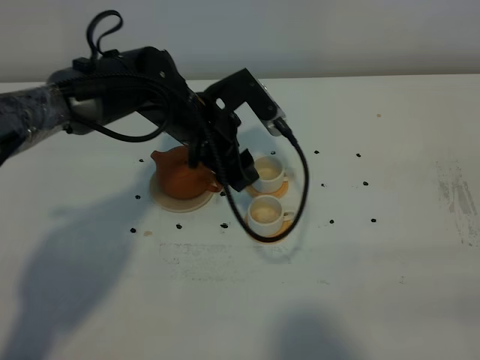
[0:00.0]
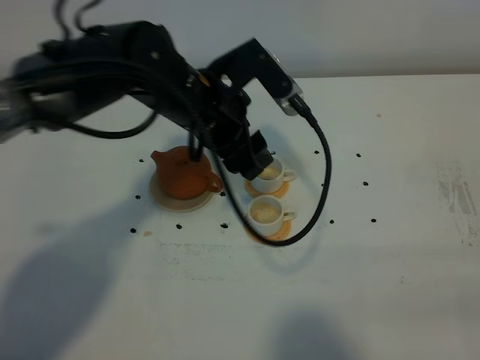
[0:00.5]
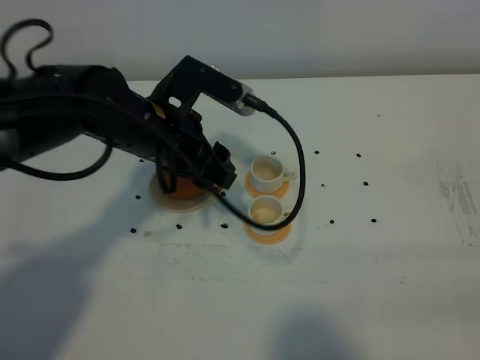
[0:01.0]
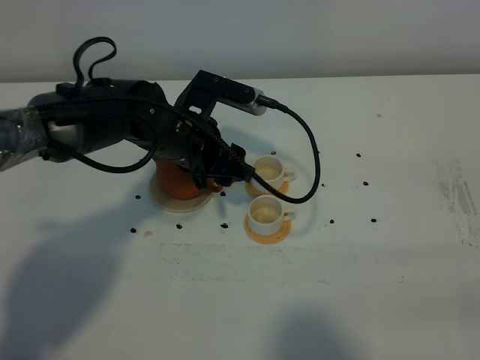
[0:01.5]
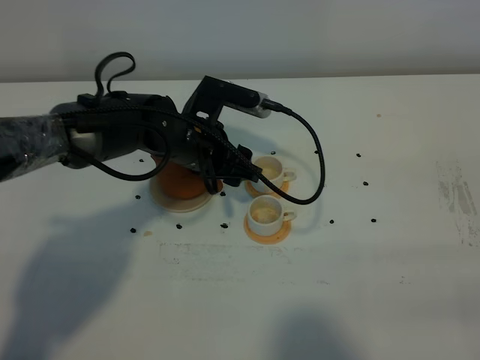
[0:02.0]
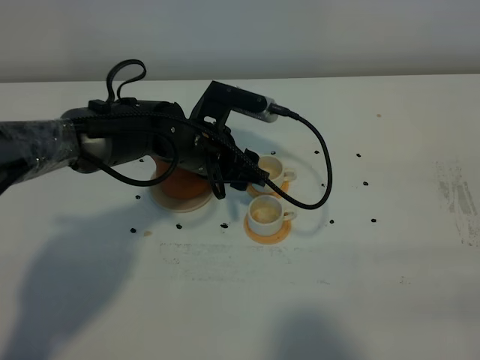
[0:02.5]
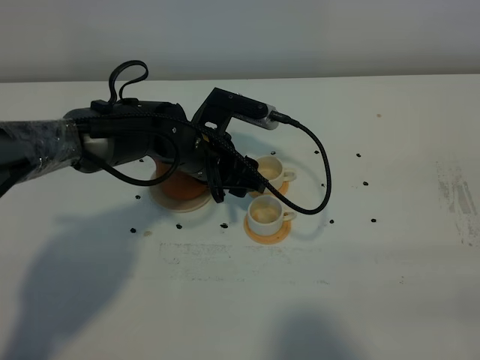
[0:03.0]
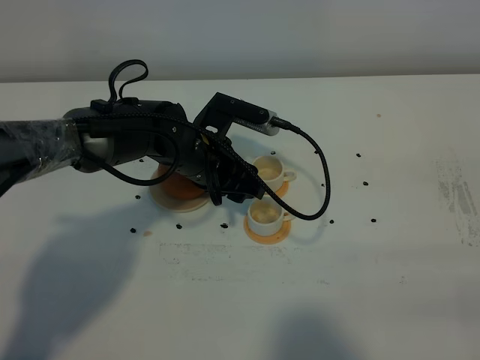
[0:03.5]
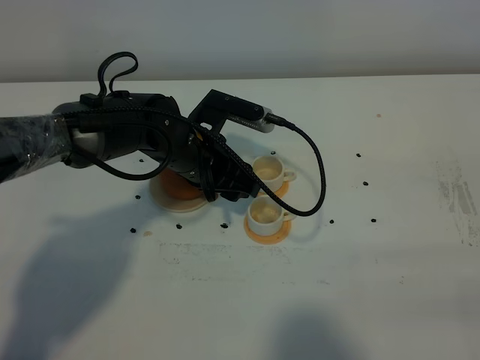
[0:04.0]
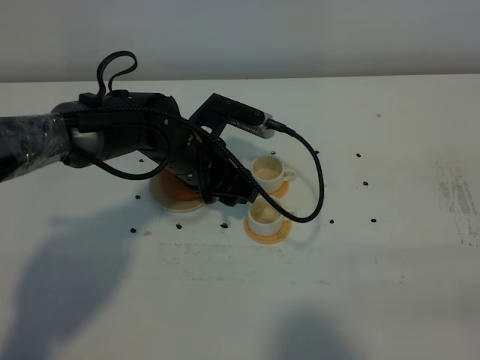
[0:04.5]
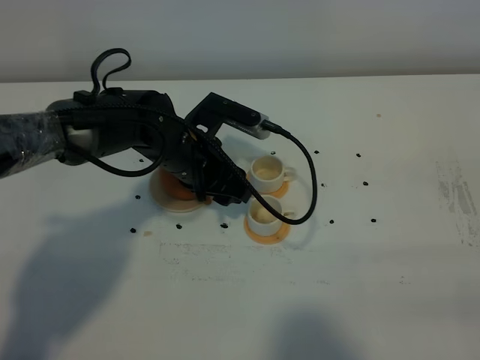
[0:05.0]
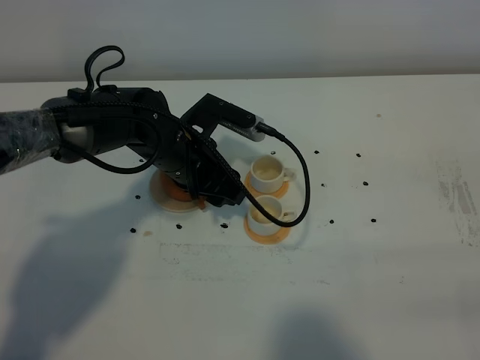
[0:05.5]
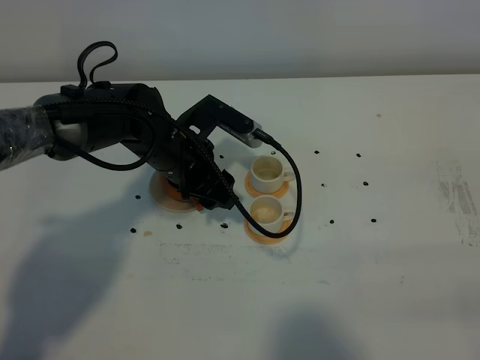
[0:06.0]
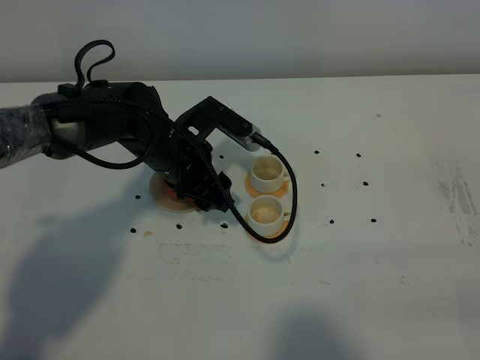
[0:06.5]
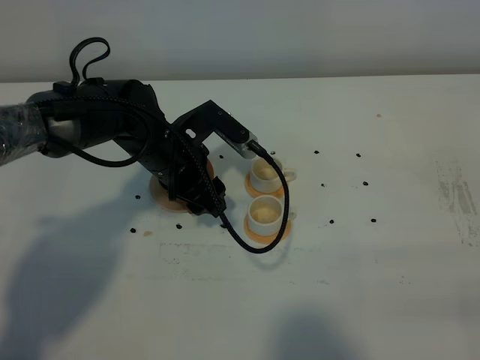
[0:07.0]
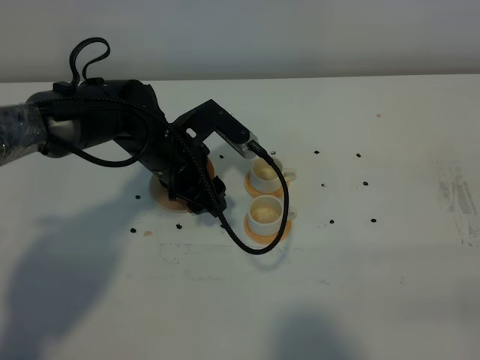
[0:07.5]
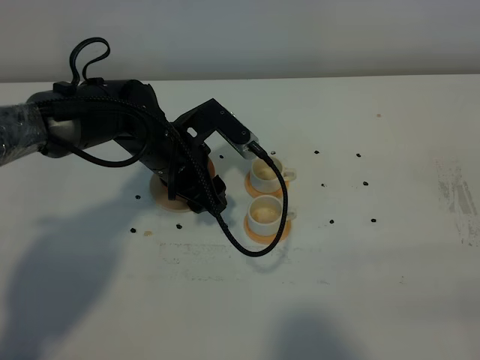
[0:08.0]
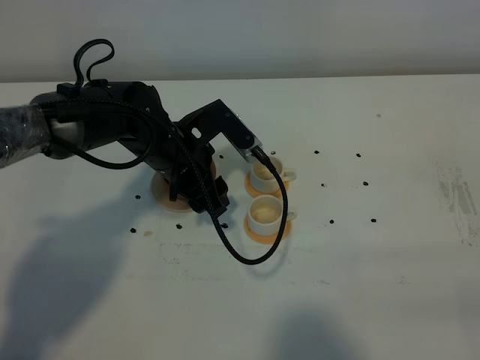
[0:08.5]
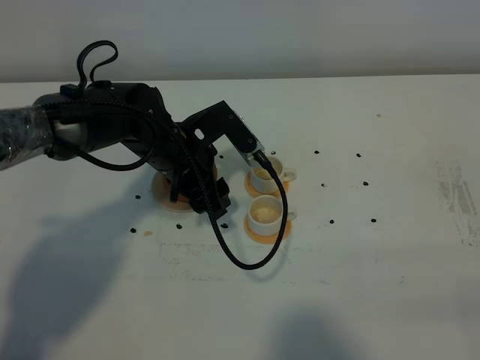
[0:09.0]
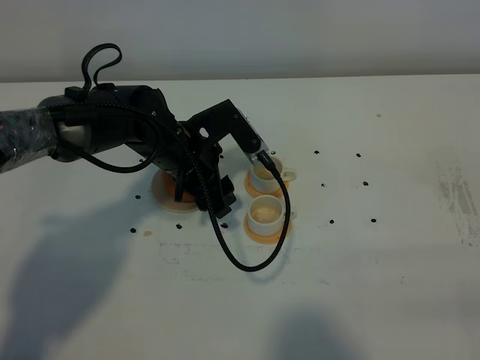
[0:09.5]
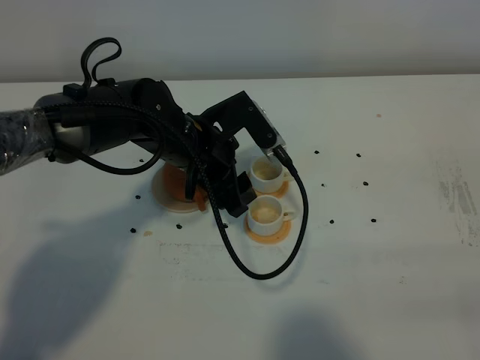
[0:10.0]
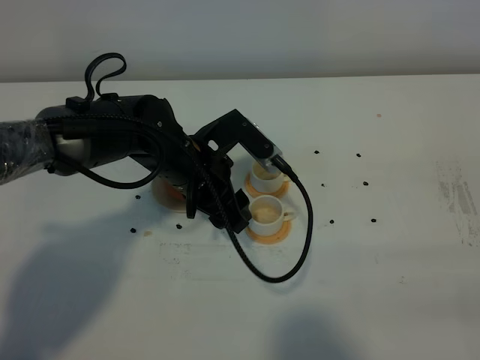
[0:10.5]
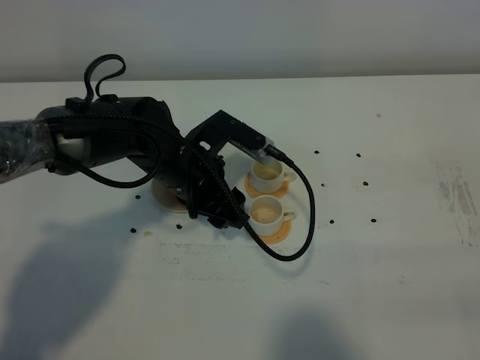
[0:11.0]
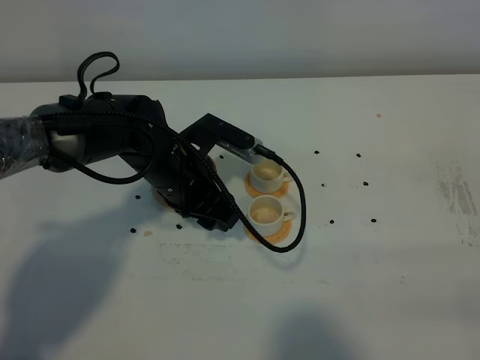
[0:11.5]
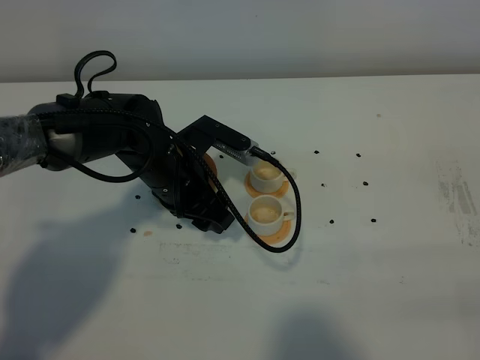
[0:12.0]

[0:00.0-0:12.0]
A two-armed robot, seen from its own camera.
Task of the whole recording: grasp the brown teapot and pour the tea into the two white teacups one by one, put the brown teapot back in its original place.
0:00.0 to 0:02.0: The left gripper reaches some 5 cm upward, then returns.
0:02.0 to 0:06.0: There are only small adjustments of the grippers.
0:06.0 to 0:08.0: The grippers make only small movements.
0:08.0 to 0:10.0: The grippers move only a little.

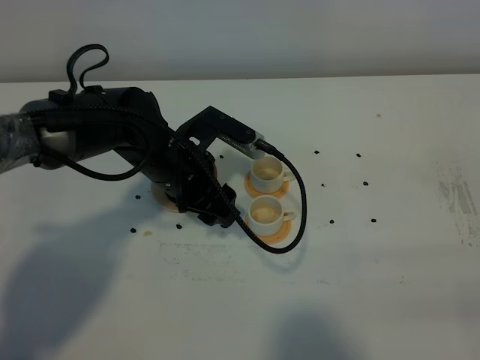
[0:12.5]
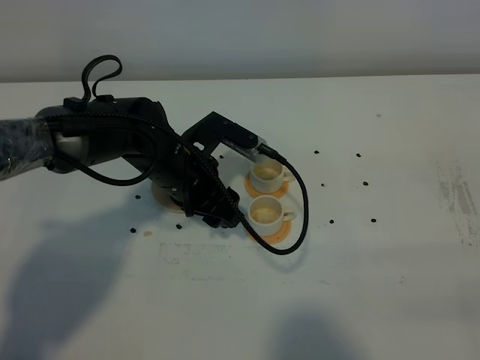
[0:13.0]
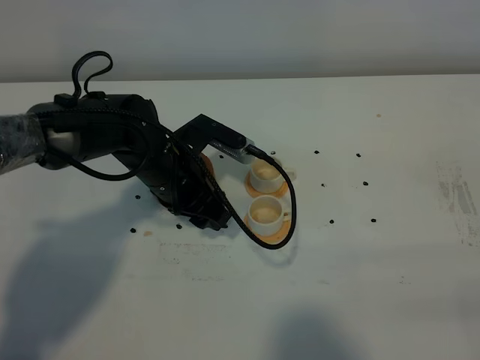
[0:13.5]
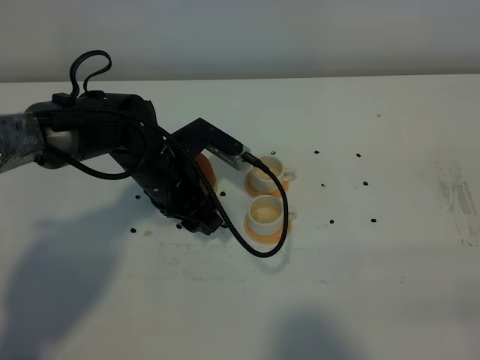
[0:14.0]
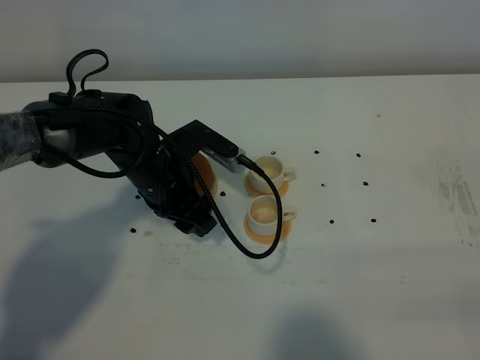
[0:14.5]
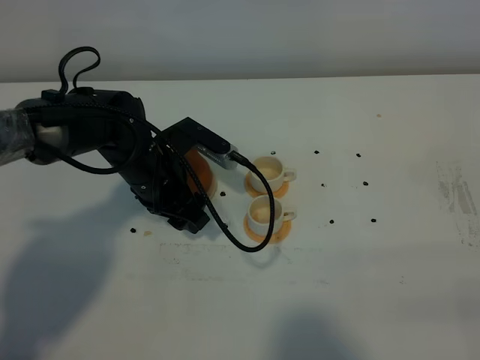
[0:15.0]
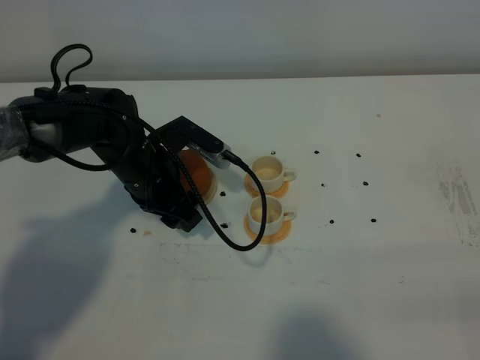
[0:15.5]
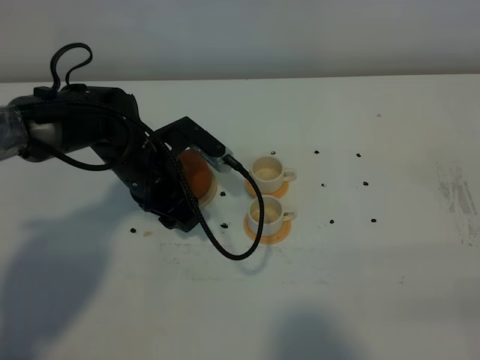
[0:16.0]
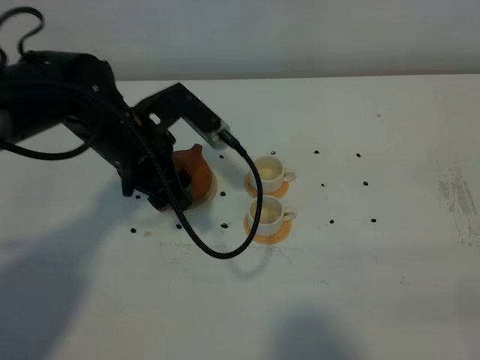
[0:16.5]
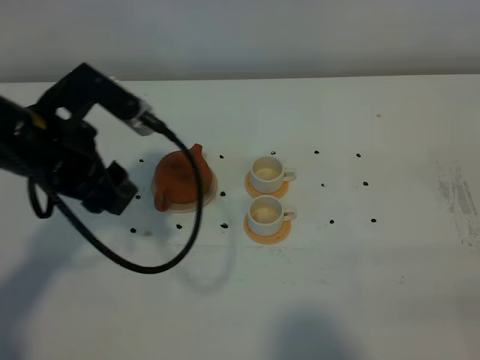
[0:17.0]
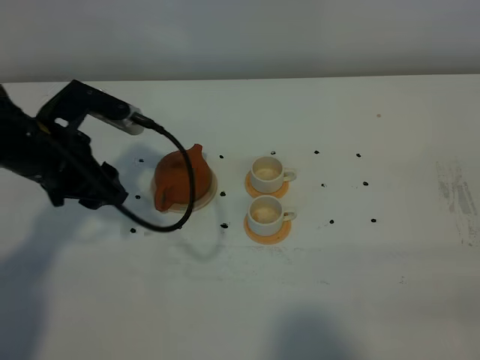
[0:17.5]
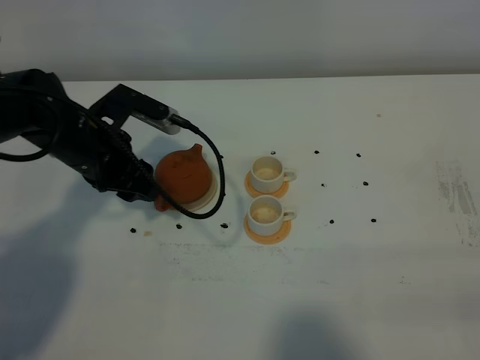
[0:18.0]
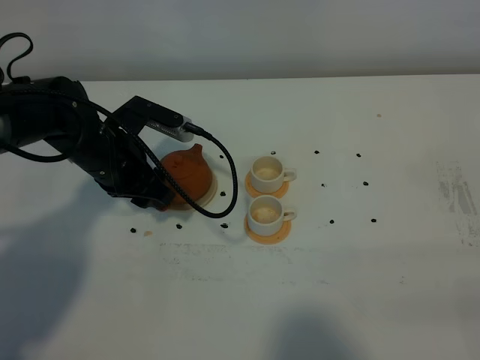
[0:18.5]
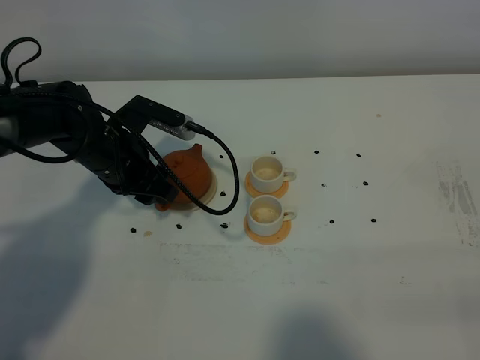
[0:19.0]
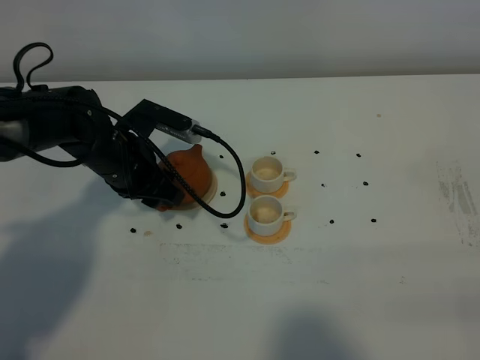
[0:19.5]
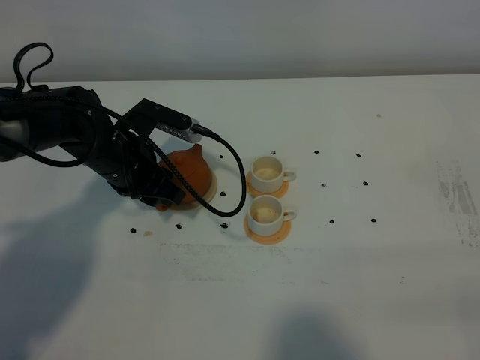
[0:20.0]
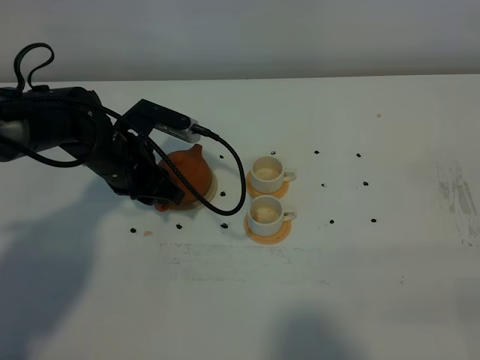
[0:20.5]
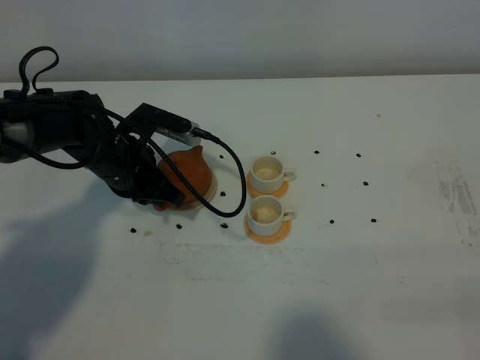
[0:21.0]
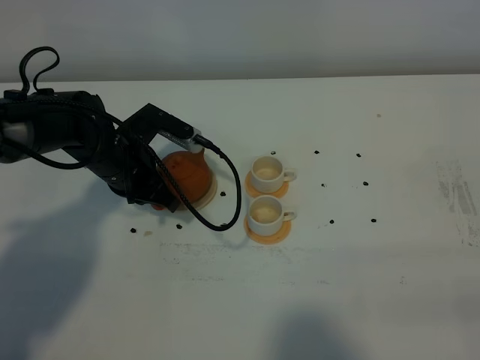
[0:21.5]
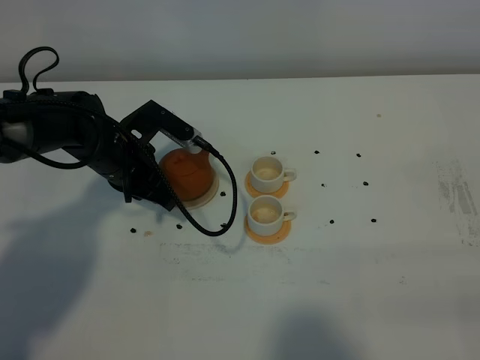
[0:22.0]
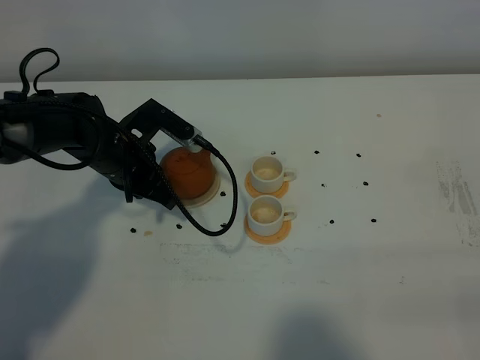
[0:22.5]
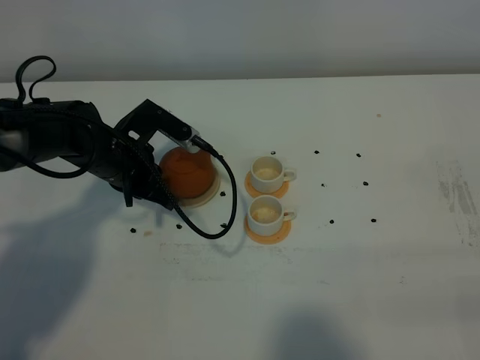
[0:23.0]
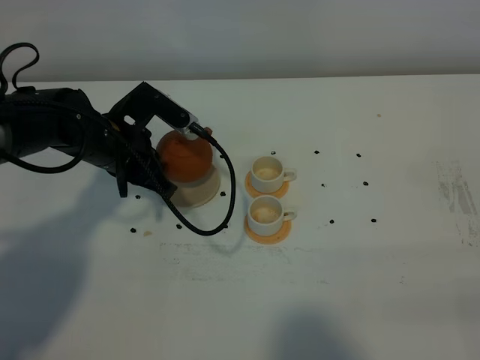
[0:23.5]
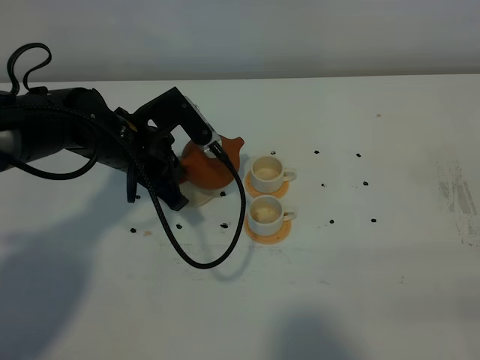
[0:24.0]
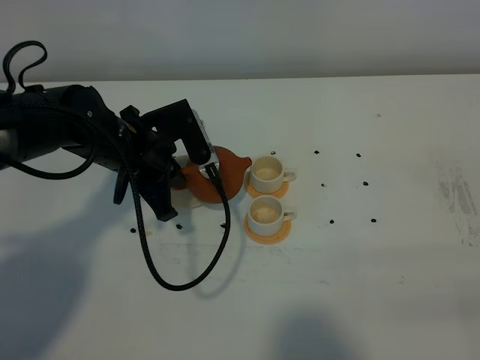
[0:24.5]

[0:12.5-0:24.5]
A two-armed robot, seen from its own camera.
Task of the whole recording: grasp the brown teapot and pour the tea into the two white teacups one by one, put the brown teapot back in its original place.
Step, 0:12.5 to 0:23.0: Pick up the teapot with the left gripper.
0:12.5 to 0:14.5: There are only small adjustments of the grippers.
0:14.5 to 0:16.5: The left gripper travels upward by roughly 10 cm.
0:16.5 to 0:18.5: The left gripper is displaced downward by some 5 cm.
0:18.5 to 0:20.5: There are only small adjustments of the grippers.
0:20.5 to 0:22.5: The left gripper closes its fingers.
0:22.5 to 0:24.5: The left gripper shifts by roughly 5 cm.

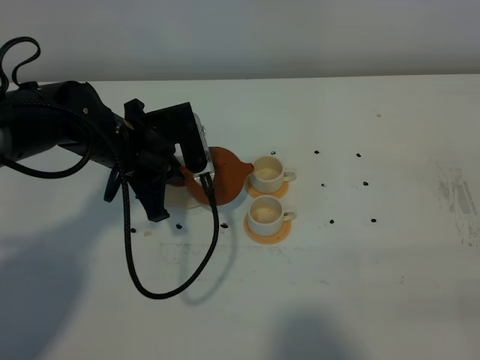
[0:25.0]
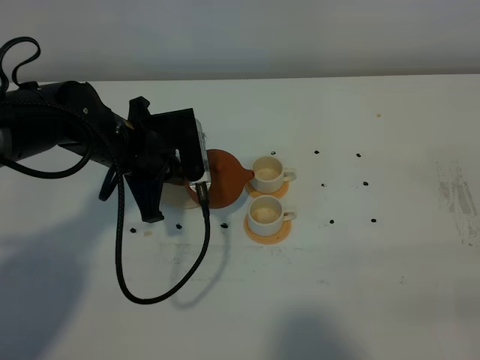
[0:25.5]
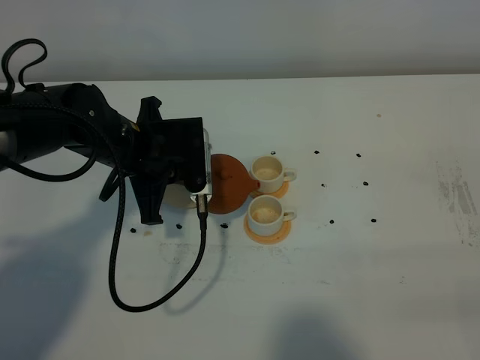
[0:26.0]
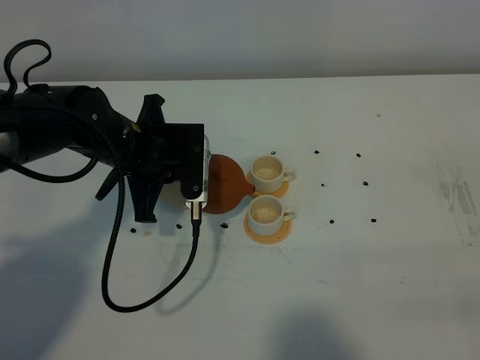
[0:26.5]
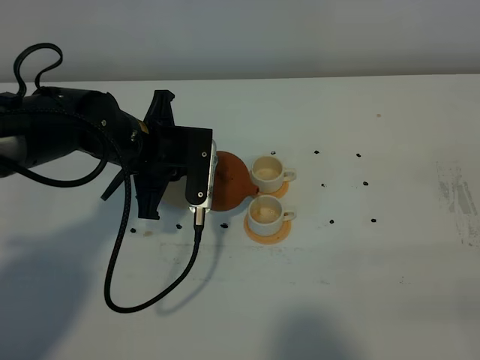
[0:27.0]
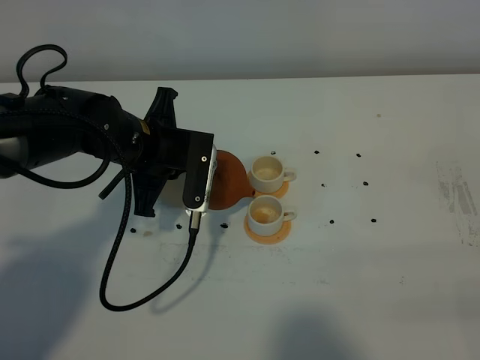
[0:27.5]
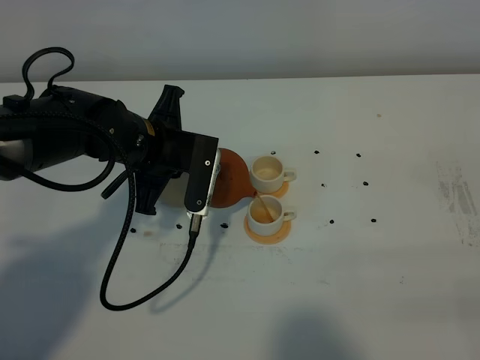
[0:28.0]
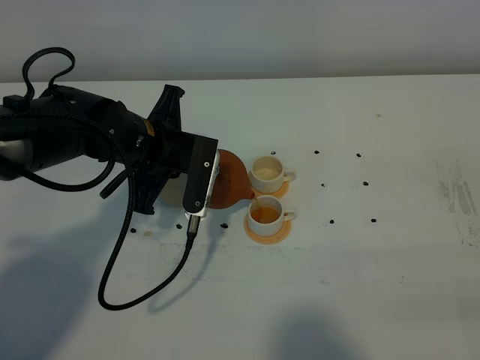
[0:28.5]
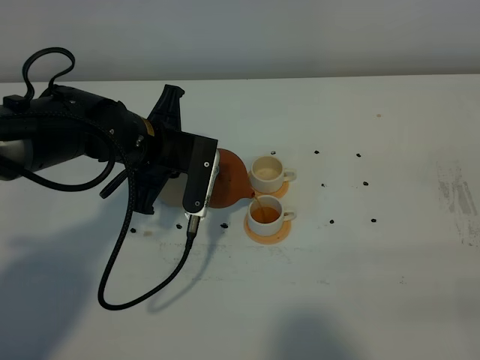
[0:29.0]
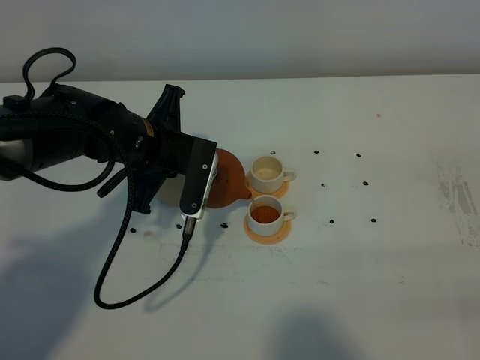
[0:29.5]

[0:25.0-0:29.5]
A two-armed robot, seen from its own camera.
Task of the whole recording: grasp the brown teapot and pour the tea into the two white teacups one by one, put the brown teapot back in its original place.
0:27.0 to 0:29.5: The grippers move only a little.
